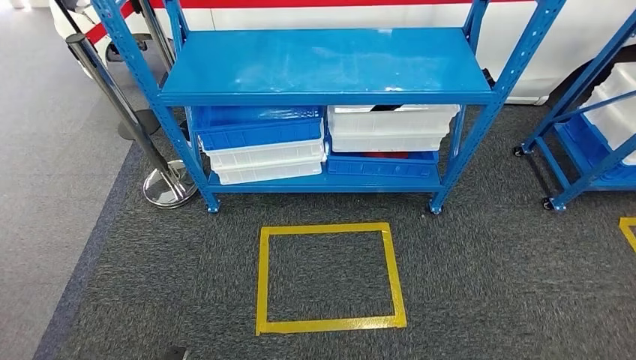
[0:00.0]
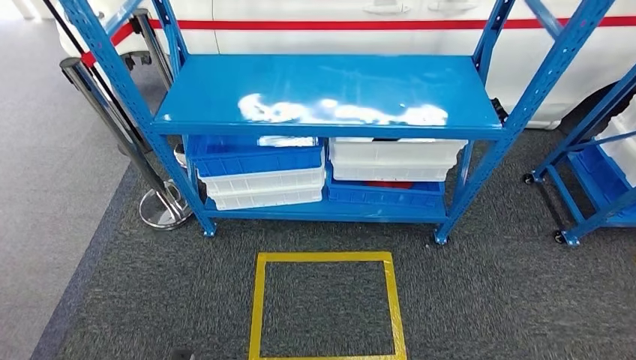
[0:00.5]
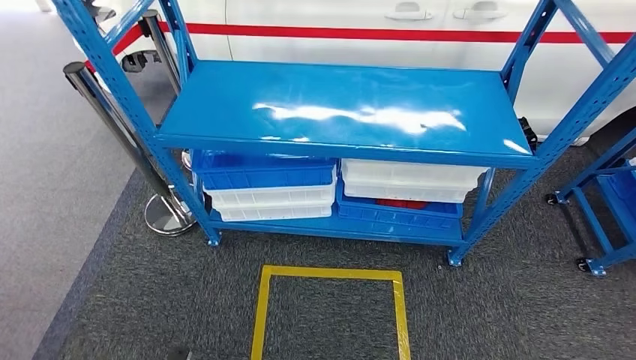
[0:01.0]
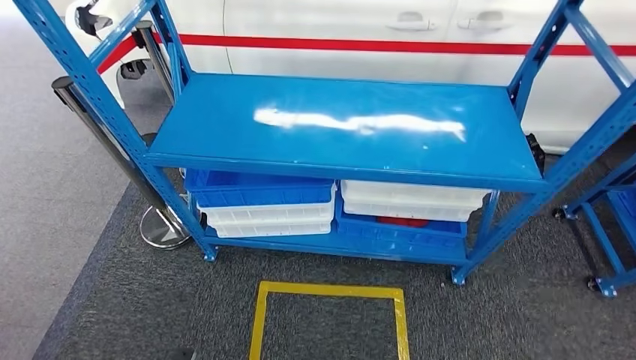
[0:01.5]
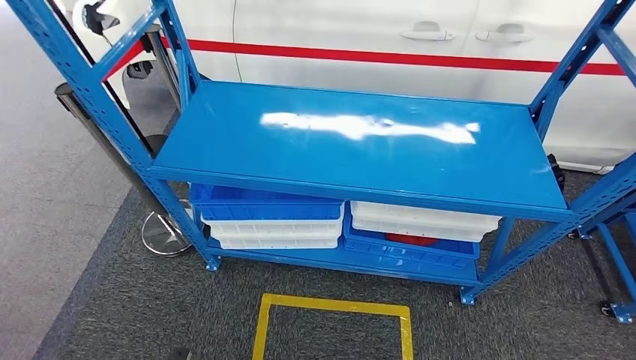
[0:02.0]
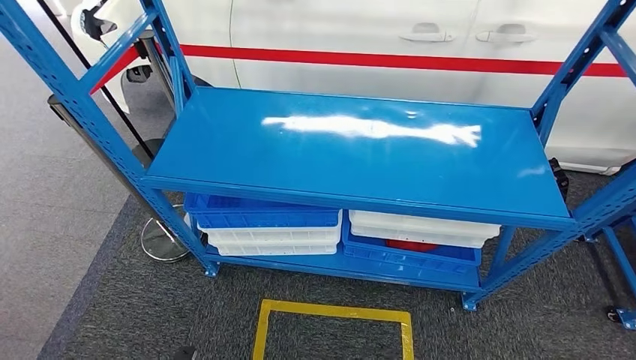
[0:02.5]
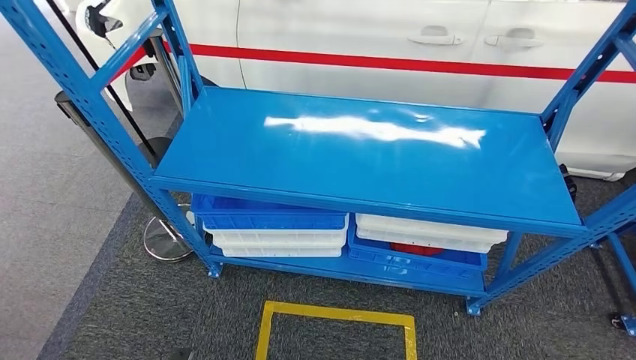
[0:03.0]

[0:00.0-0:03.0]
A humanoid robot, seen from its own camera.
Step, 0:00.0 to 0:03.0: Return to the initial position at the shelf.
